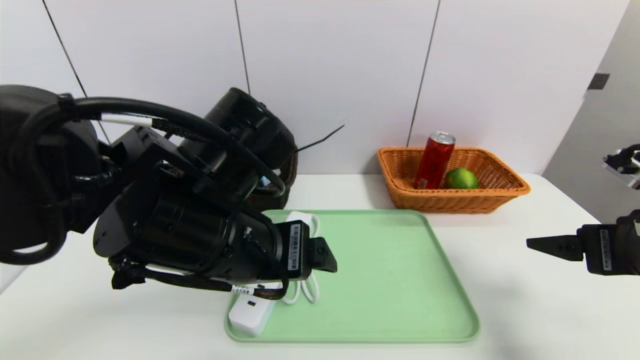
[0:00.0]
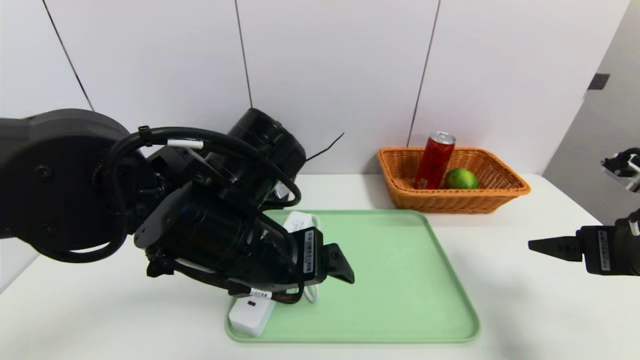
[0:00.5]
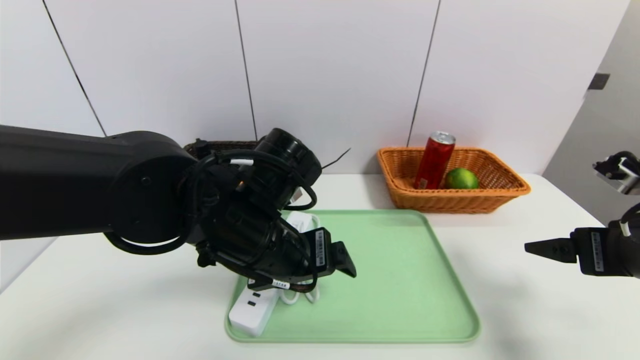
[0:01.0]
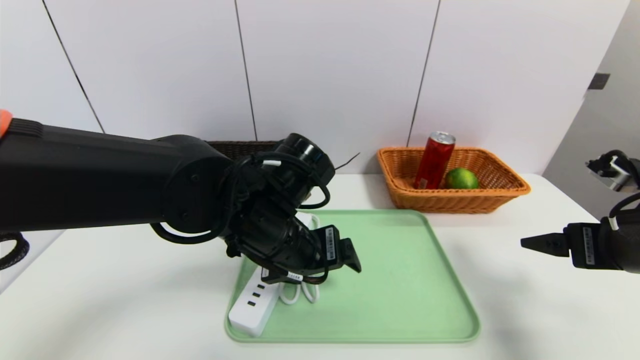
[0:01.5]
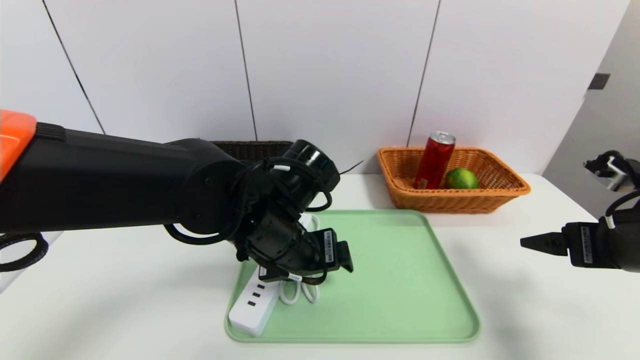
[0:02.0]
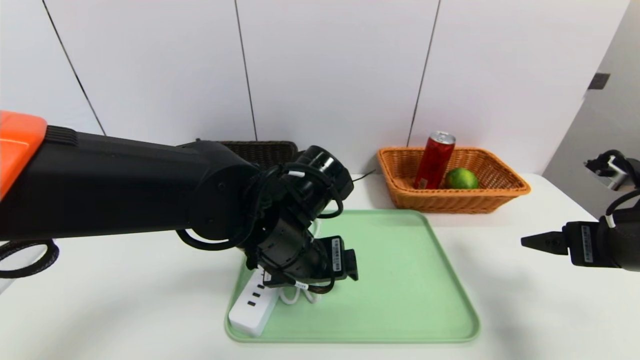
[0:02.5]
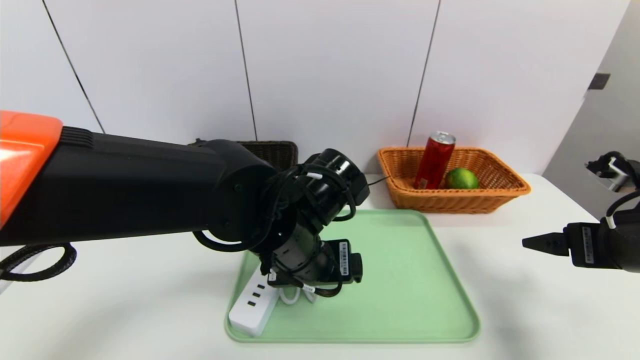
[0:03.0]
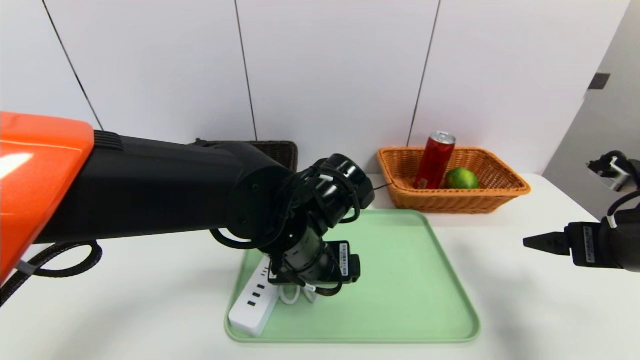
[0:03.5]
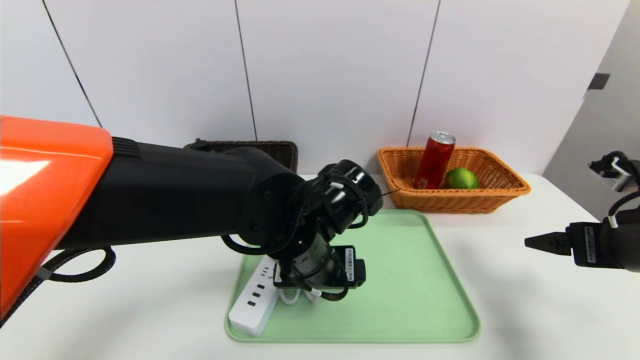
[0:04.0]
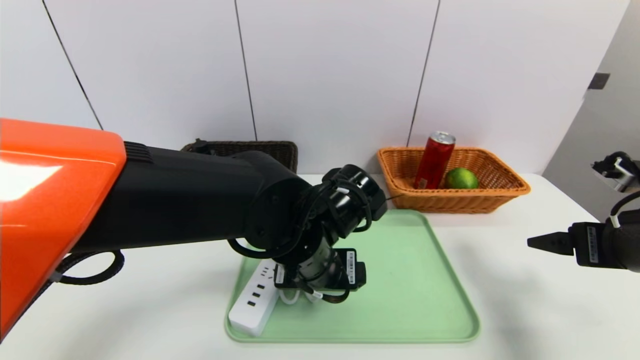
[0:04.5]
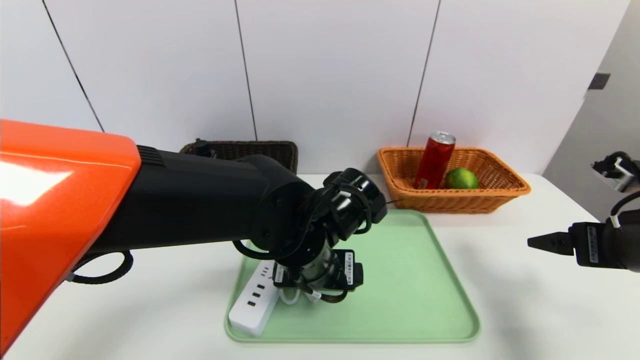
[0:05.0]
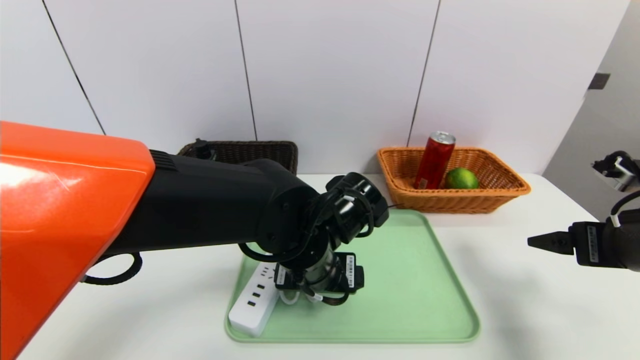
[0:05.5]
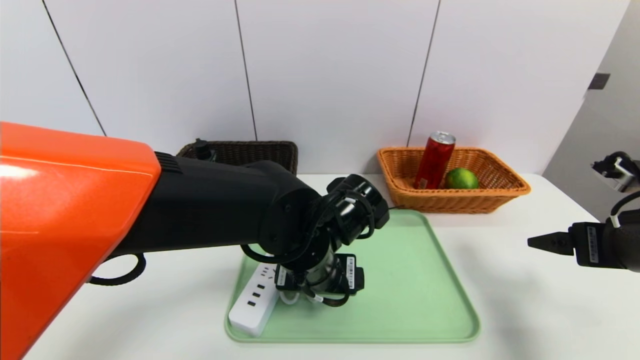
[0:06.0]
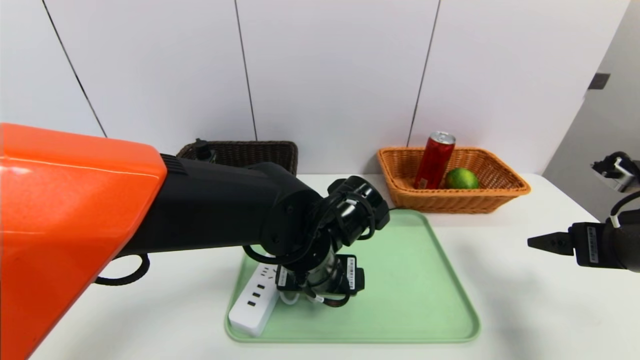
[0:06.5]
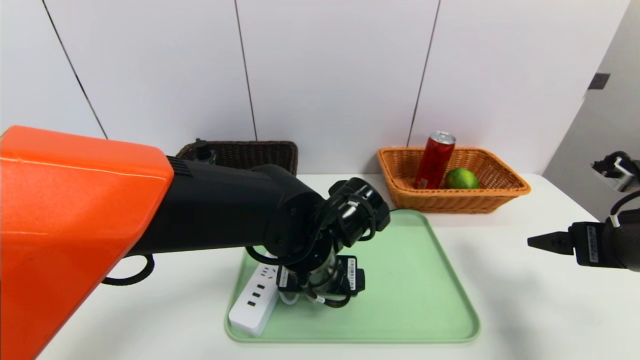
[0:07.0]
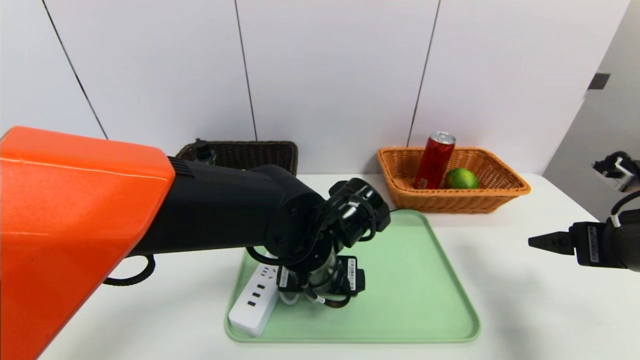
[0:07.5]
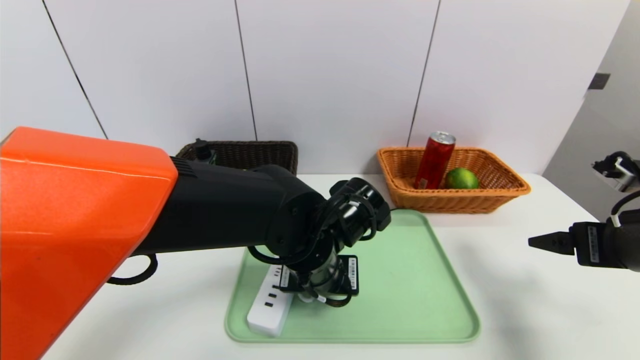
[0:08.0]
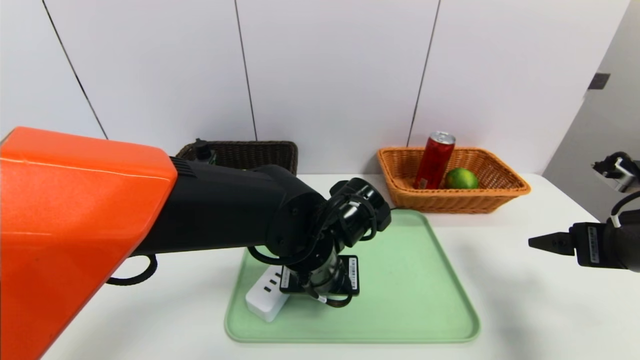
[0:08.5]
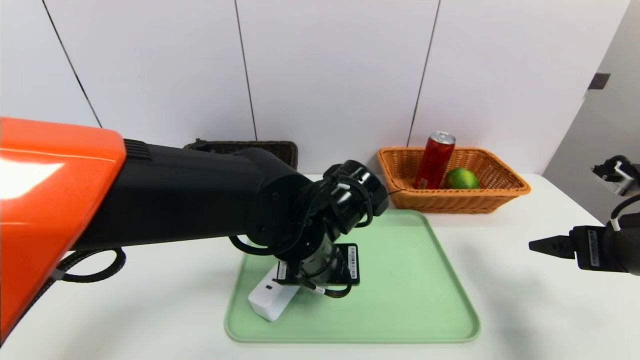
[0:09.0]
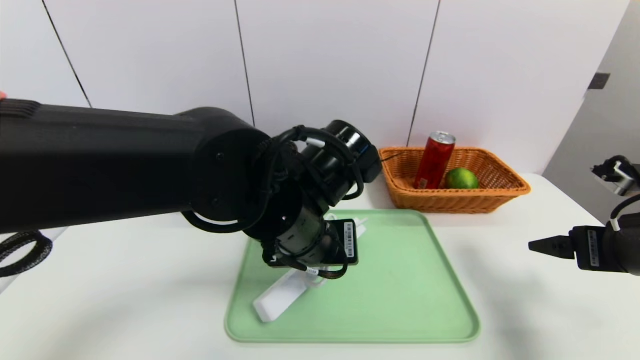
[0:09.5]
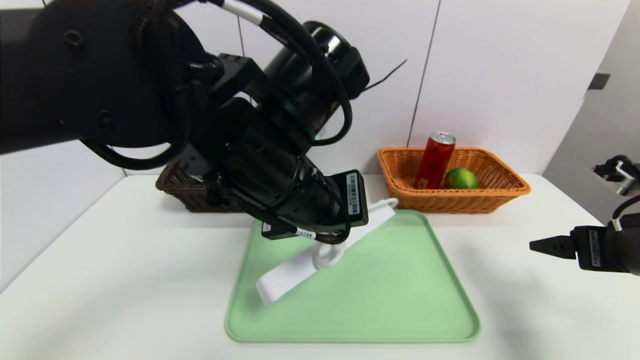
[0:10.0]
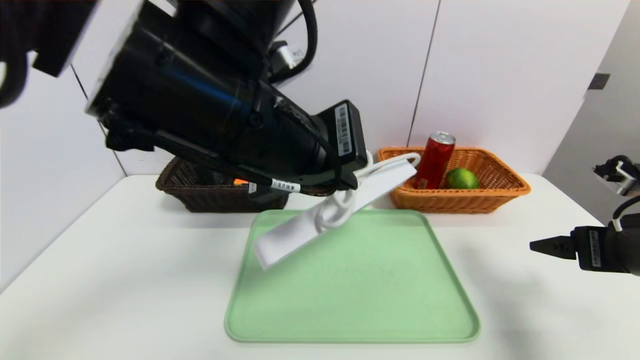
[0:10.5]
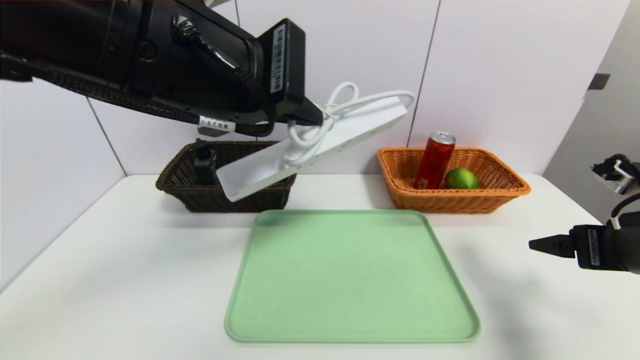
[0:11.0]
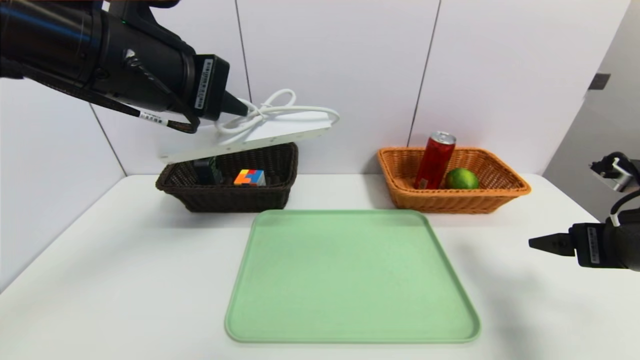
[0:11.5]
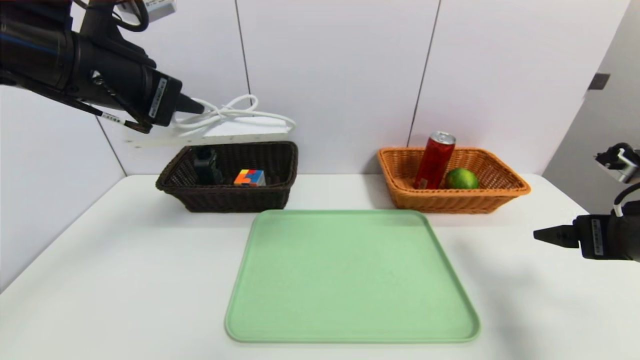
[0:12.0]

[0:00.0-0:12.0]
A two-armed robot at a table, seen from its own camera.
Task of the whole recording: place the food in the right basket with the right gripper, and place the non food items in the left basket with the left gripper.
0:00.0 to 0:02.0: The left gripper heads forward and downward, covering approximately 10 cm.
0:02.0 to 0:06.0: The grippers move only a little.
0:06.0 to 0:08.0: The left gripper closes up.
0:08.0 to 0:10.0: The left gripper heads upward, covering about 15 cm, and closes its fingers.
0:10.0 to 0:12.0: The left gripper heads to the left, covering about 20 cm.

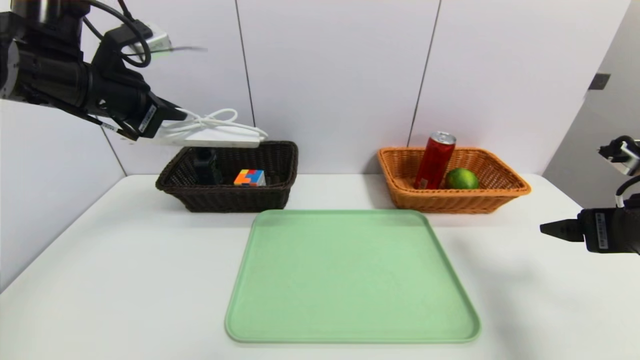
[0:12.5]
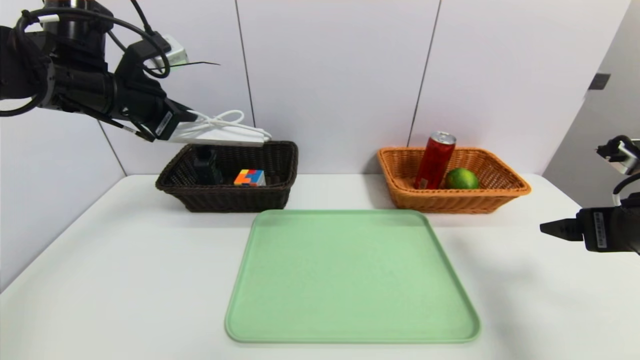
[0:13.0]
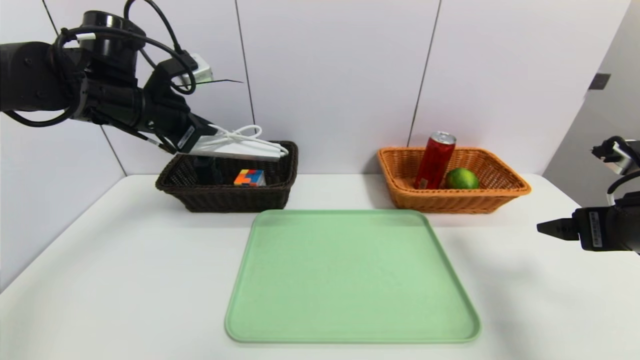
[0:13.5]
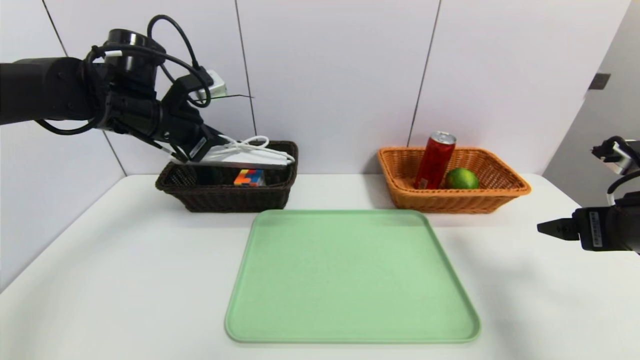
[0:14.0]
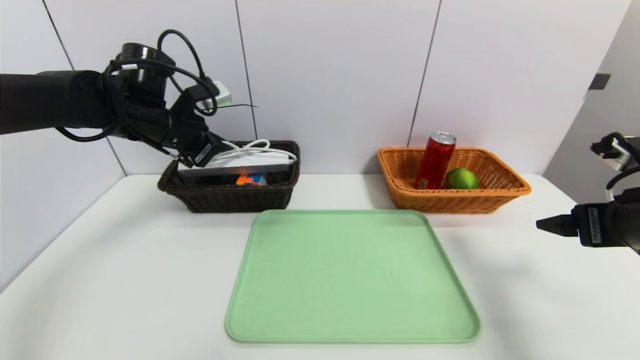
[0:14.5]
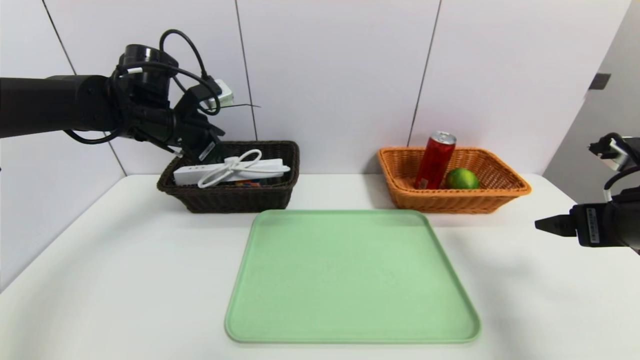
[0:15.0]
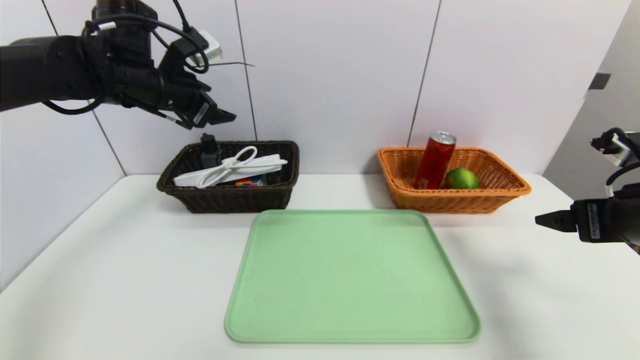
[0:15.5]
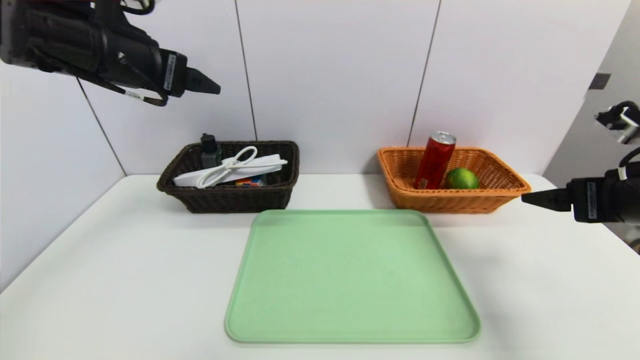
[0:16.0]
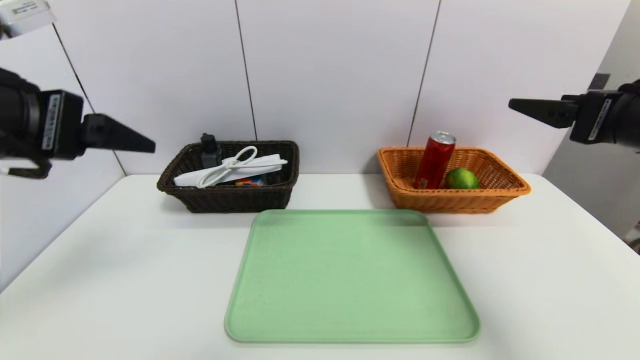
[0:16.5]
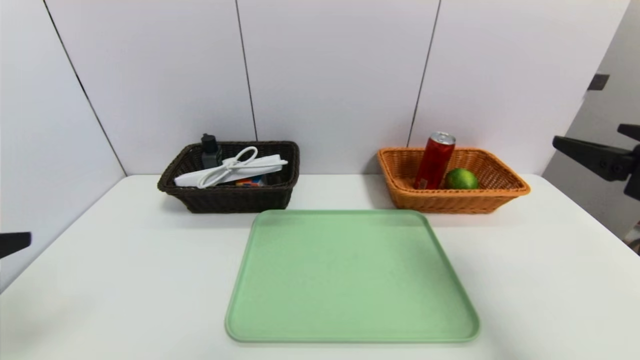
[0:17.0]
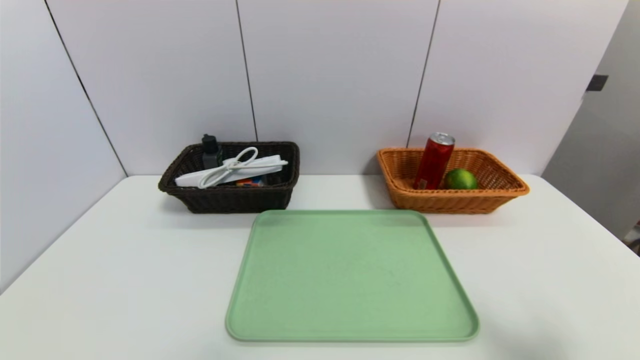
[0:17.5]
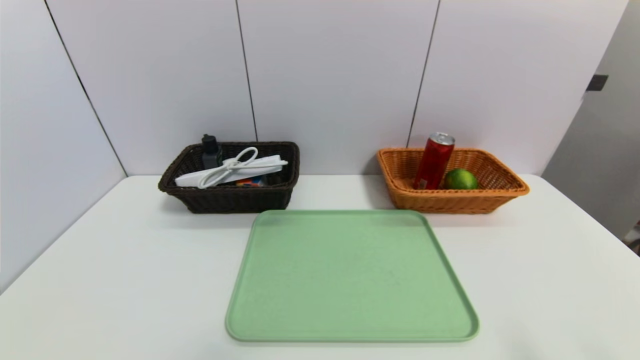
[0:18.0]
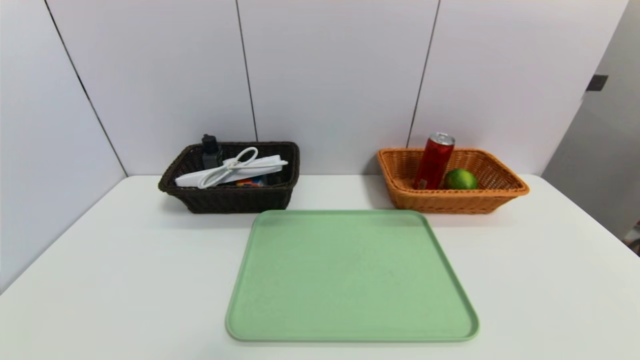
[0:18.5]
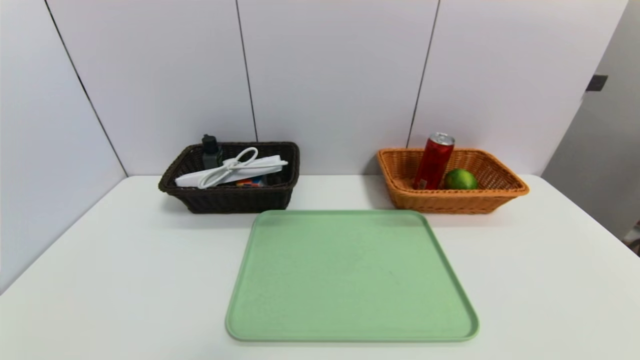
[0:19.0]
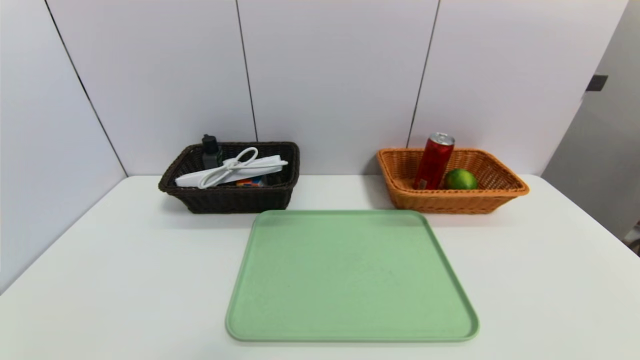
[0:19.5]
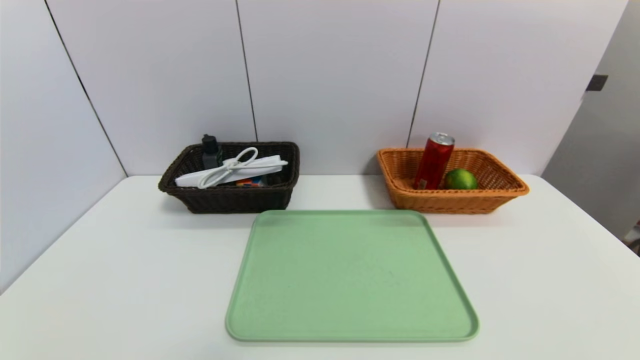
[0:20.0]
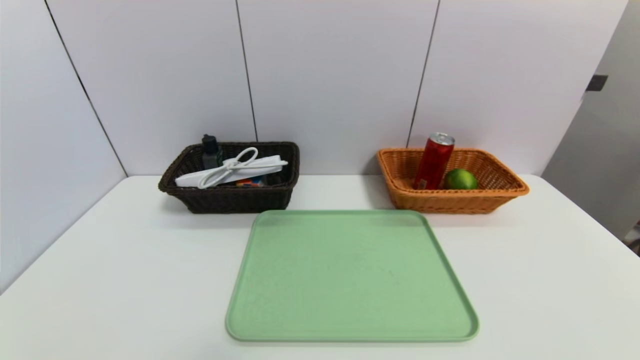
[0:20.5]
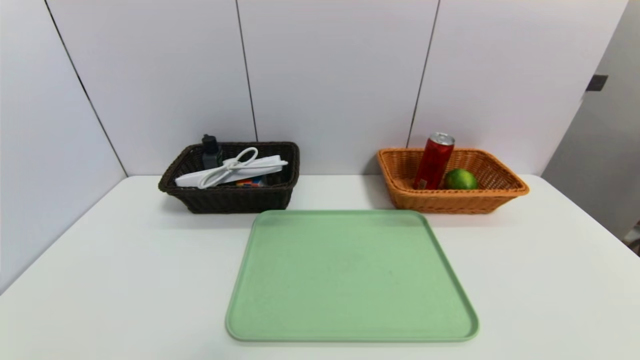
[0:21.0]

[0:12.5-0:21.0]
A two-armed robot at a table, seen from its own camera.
Task of the whole recording: place the food in the right basket with the right gripper, and place the non food items in the left basket with the left gripper.
Step, 0:12.5 to 0:15.0: Grasp the power strip and put it in the left basket.
0:12.5 to 0:14.5: The left gripper heads downward and forward, covering roughly 10 cm.
0:14.5 to 0:16.5: The left gripper is displaced backward and upward by some 25 cm, and opens up; the right gripper is displaced upward by roughly 10 cm.
0:16.5 to 0:19.0: The right gripper shifts roughly 35 cm backward and downward; the left gripper shifts about 30 cm downward and backward.
